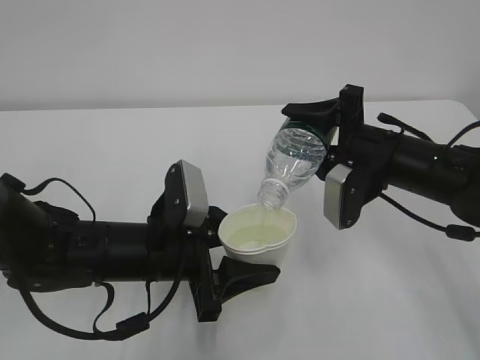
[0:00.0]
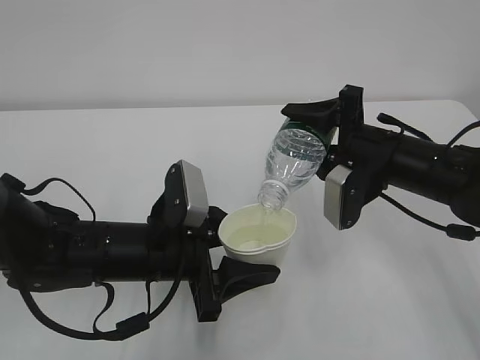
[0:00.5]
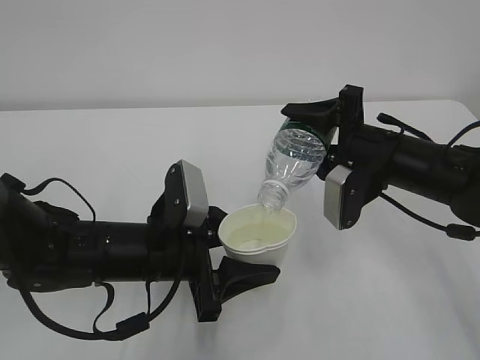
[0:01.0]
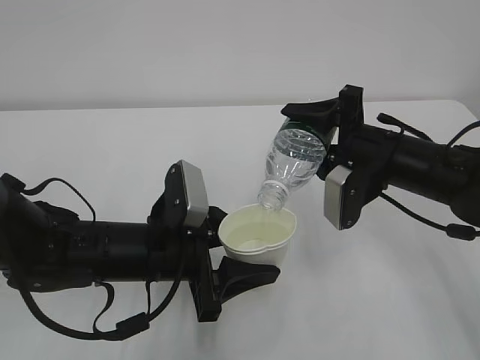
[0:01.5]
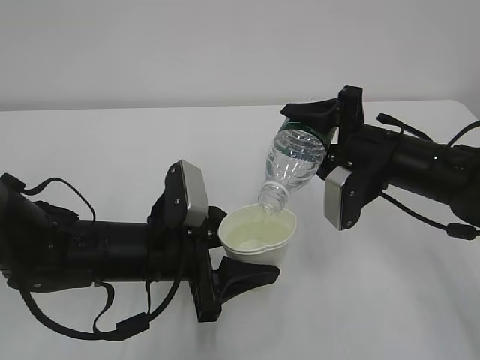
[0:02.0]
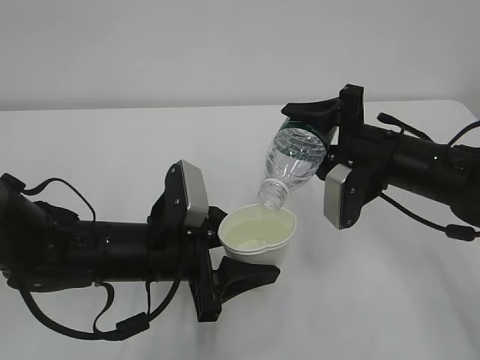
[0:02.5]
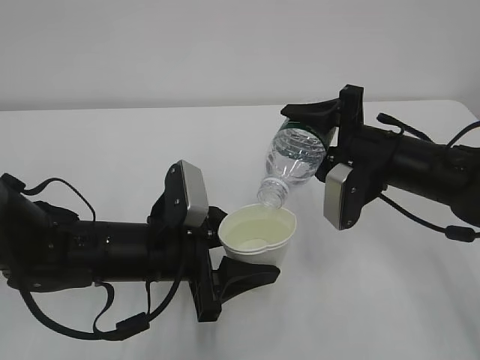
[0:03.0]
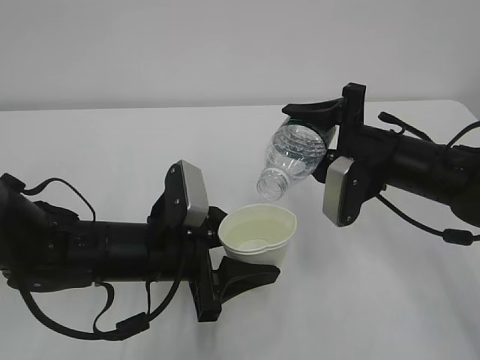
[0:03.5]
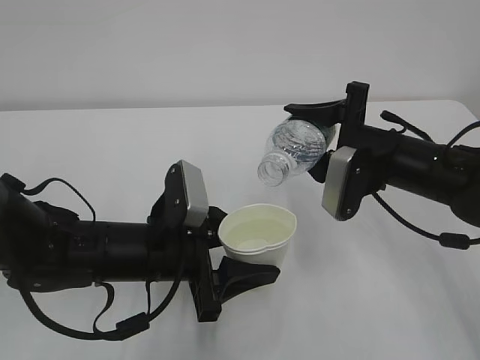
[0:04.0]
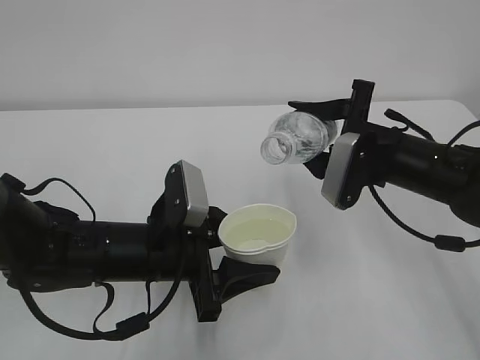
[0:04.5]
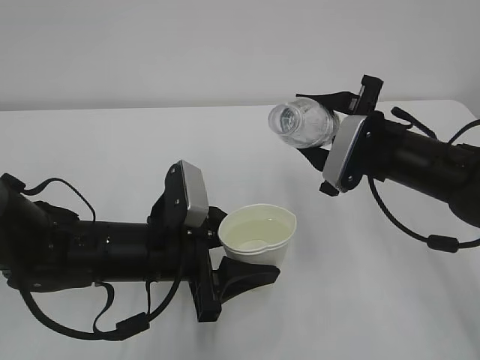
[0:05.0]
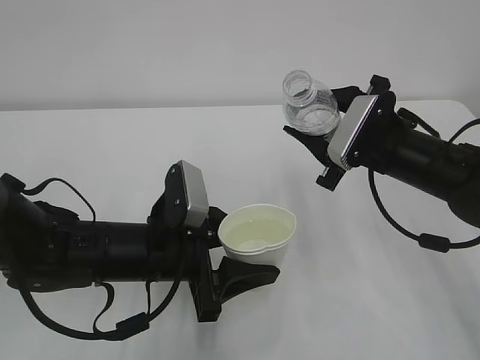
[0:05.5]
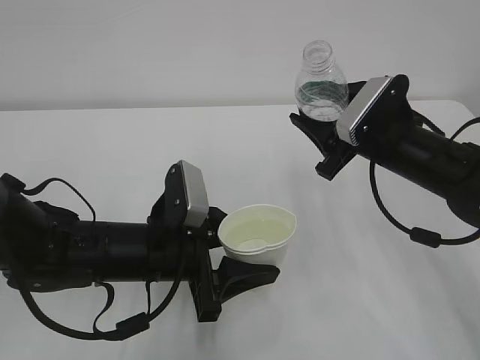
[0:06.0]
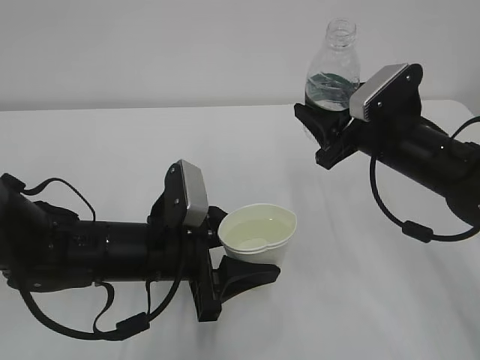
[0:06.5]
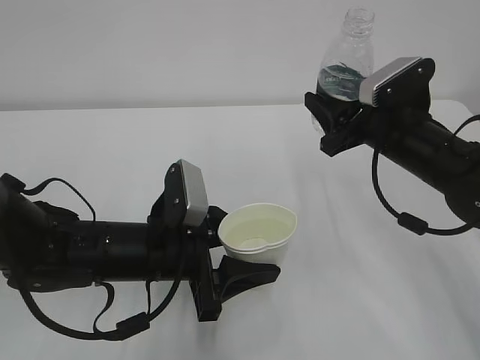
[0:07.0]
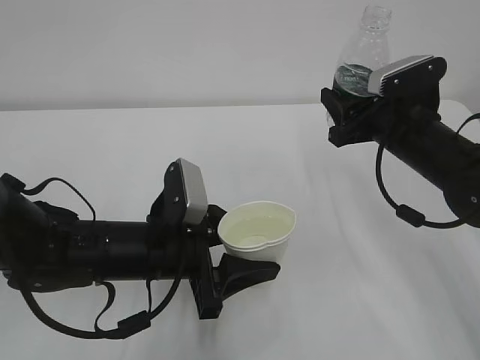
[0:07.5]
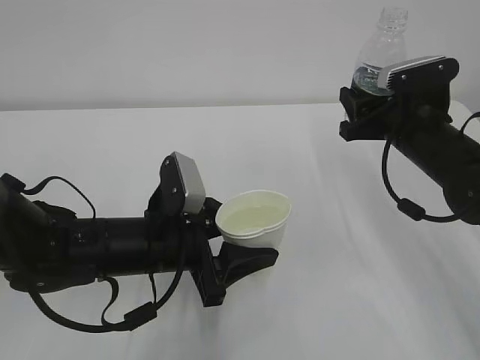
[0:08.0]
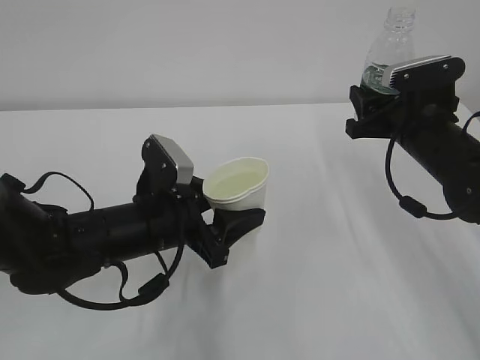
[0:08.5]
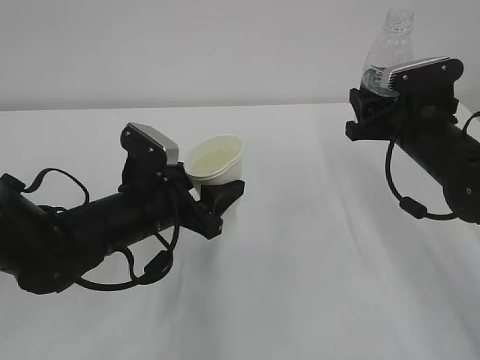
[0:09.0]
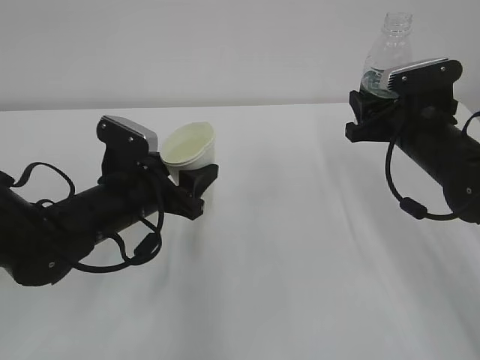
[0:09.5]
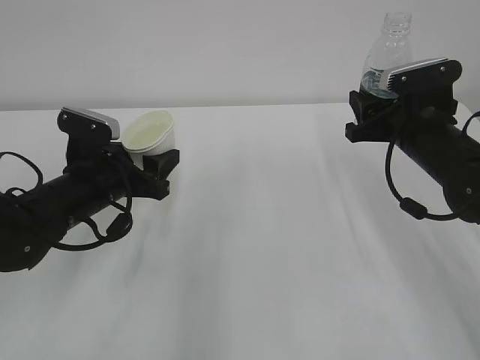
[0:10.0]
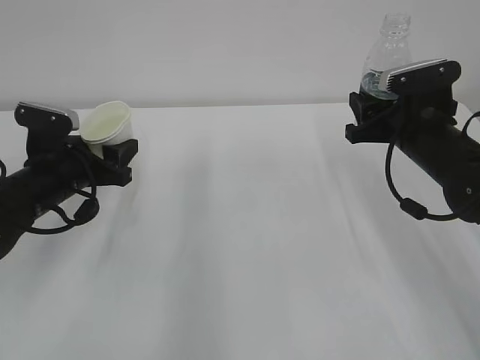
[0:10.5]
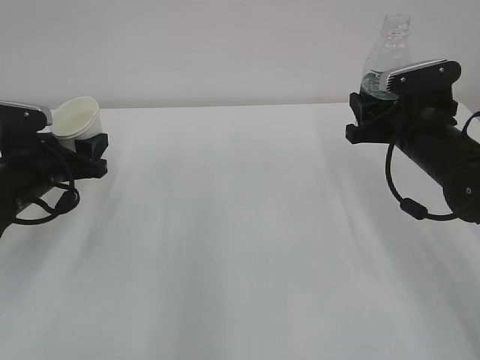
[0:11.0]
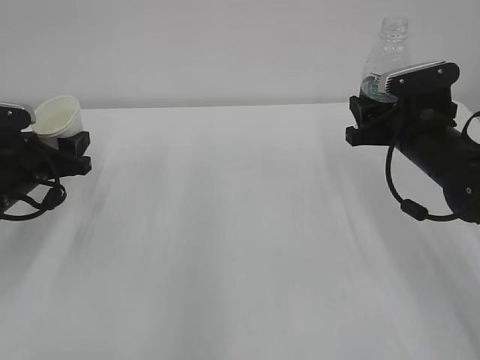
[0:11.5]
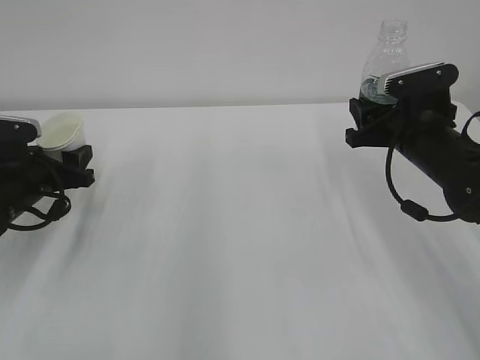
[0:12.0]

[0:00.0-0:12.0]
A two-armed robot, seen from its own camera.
0:00.0 to 0:02.0: Both grippers stay put.
0:02.0 to 0:04.0: The grippers make only small movements.
0:08.0 to 0:10.0: The left gripper heads to the left and forward, covering roughly 10 cm.
0:10.0 to 0:12.0: The left gripper is displaced to the left by about 10 cm.

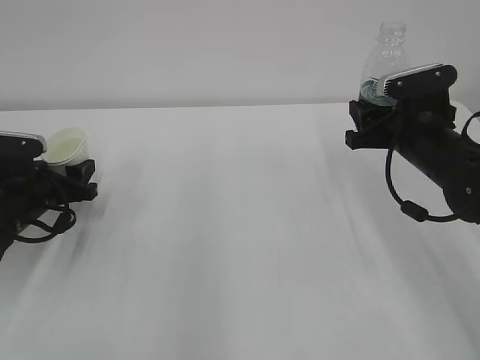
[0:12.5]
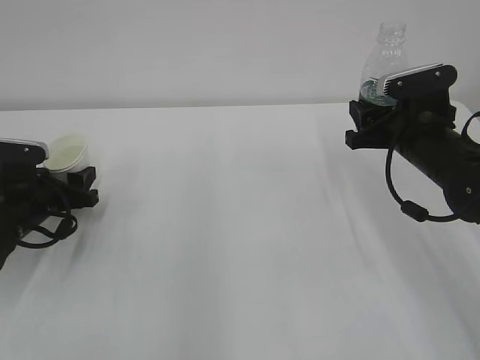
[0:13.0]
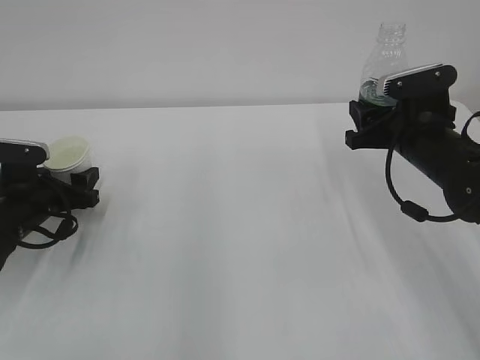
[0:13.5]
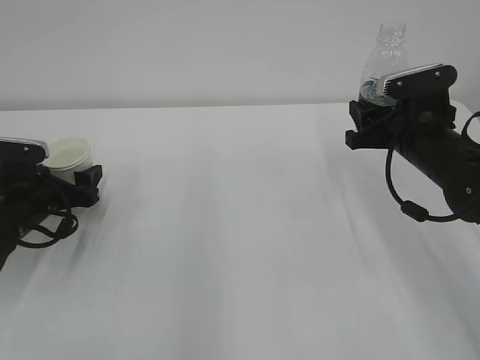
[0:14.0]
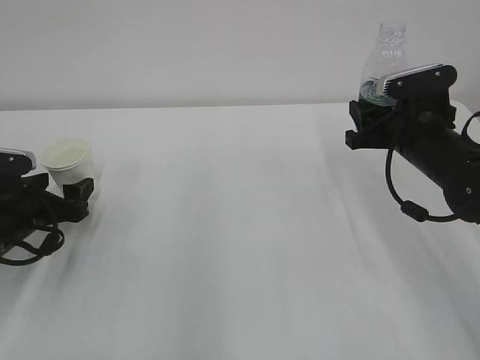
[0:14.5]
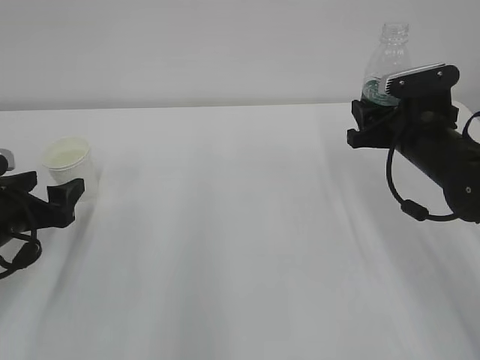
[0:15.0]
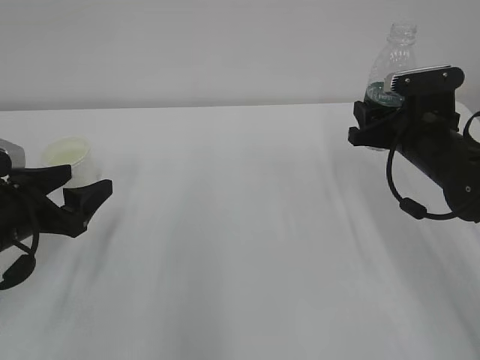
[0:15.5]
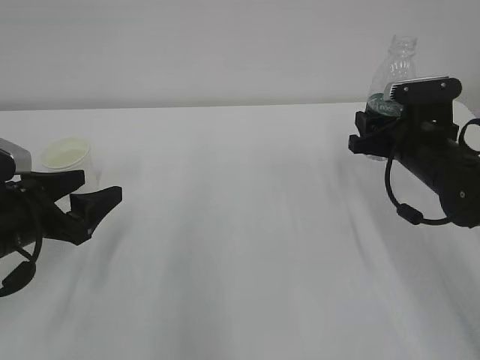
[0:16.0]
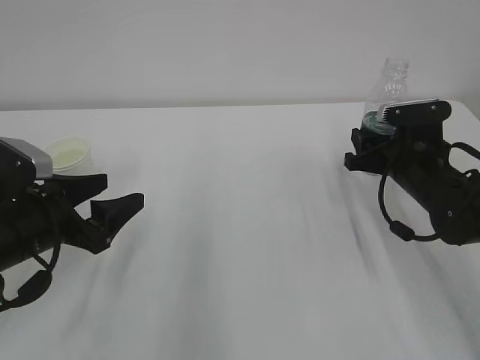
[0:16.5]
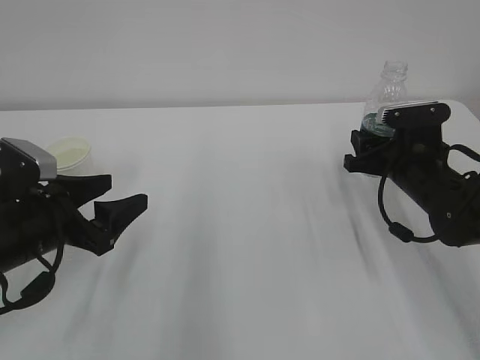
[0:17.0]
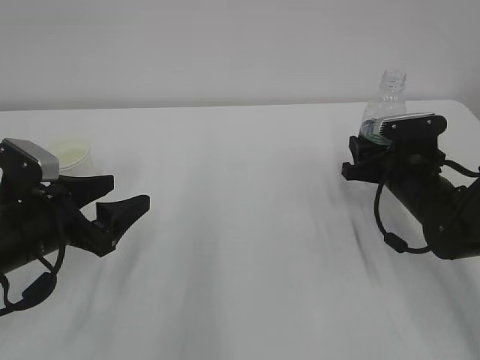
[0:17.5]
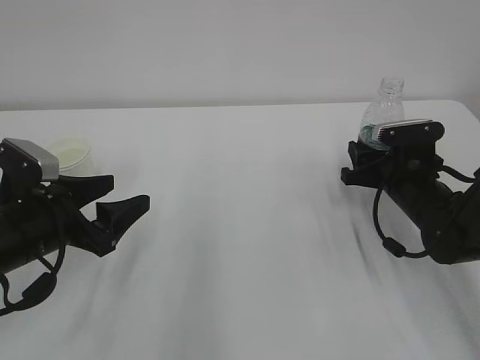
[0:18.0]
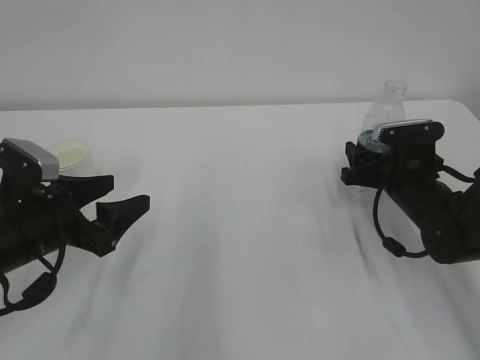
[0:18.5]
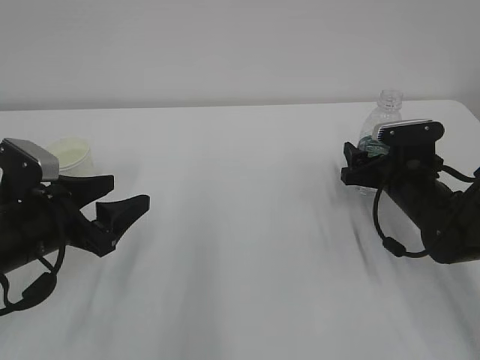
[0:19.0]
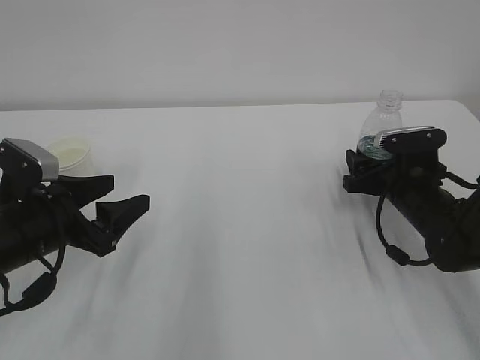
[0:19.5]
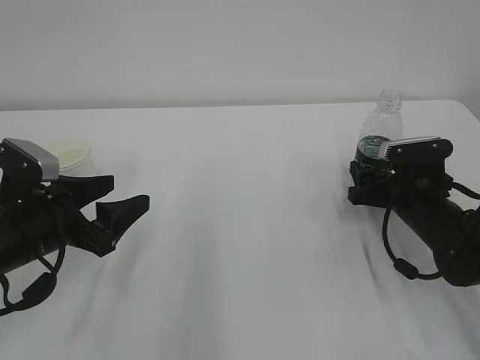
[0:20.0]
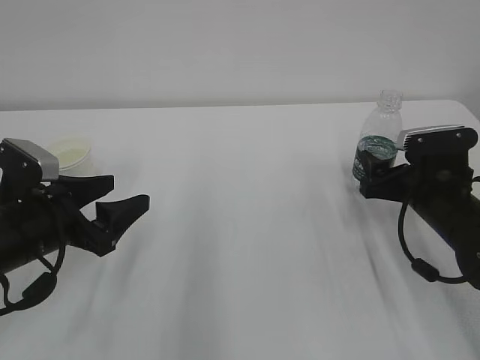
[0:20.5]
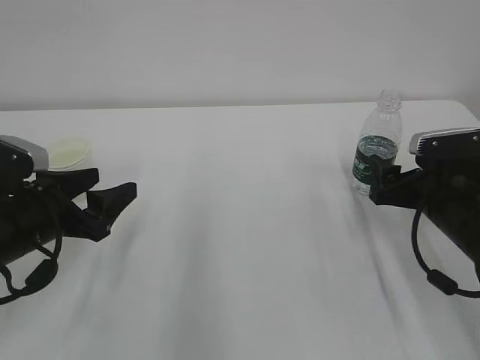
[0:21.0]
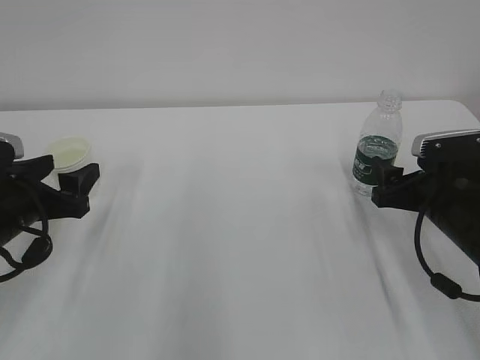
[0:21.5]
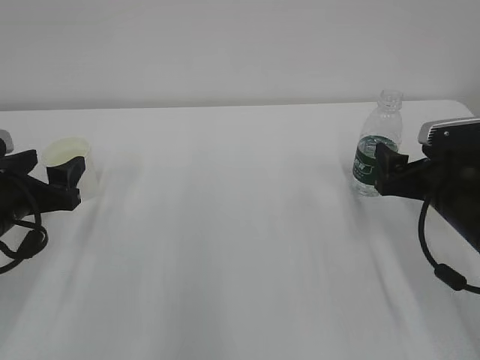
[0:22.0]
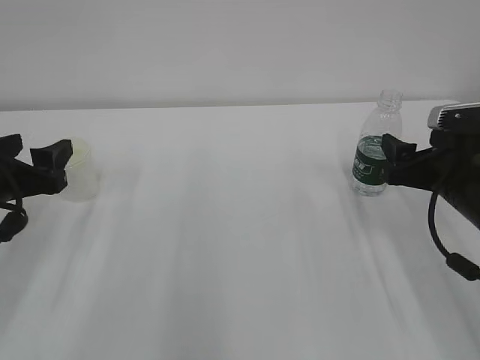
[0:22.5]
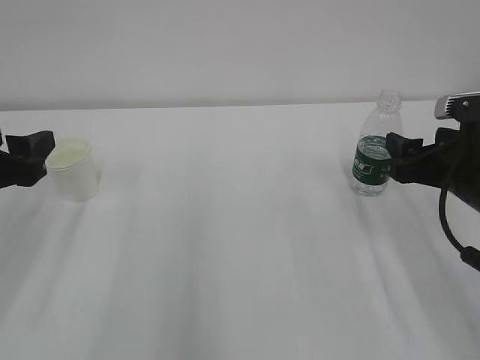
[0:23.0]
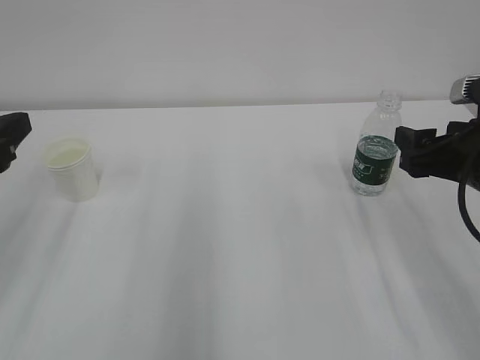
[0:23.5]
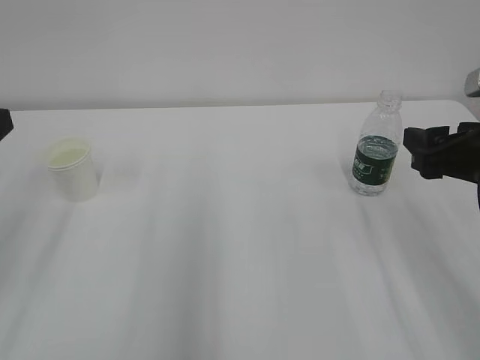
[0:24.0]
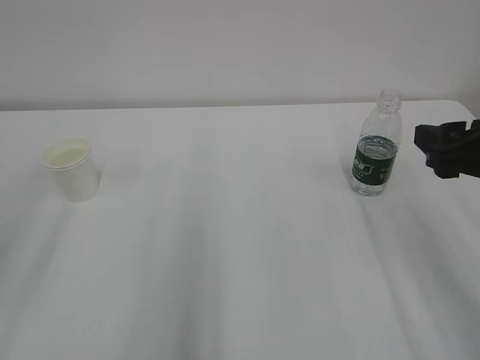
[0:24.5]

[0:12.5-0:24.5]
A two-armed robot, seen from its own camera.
0:12.5 to 0:14.5: The left gripper opens up.
0:14.5 to 0:16.5: The left gripper goes roughly 10 cm backward, to the right and upward.
0:16.5 to 0:18.5: The right gripper opens its fingers.
0:18.5 to 0:20.5: The right gripper shifts by some 5 cm, and opens up.
0:20.5 to 0:22.5: The right gripper travels upward by about 5 cm, while the left gripper moves some 5 cm.
0:22.5 to 0:24.5: The two grippers go approximately 10 cm upward and backward.

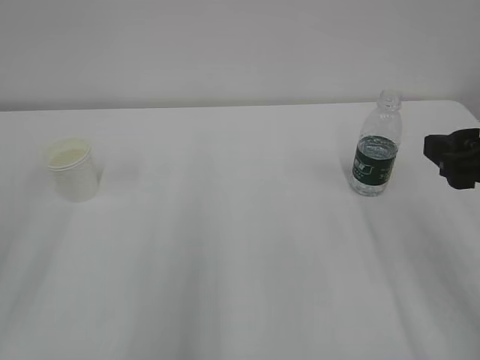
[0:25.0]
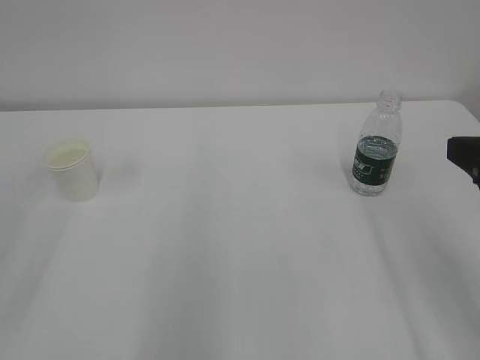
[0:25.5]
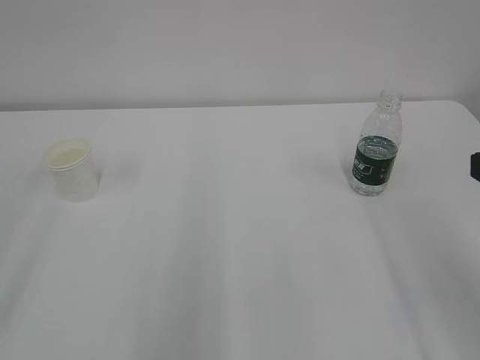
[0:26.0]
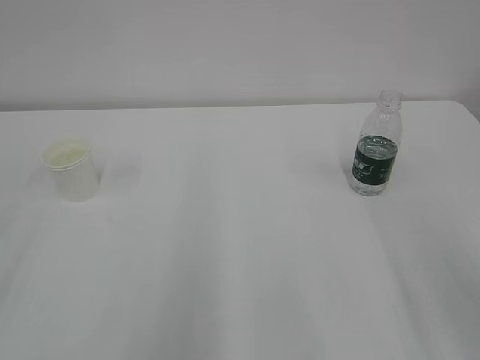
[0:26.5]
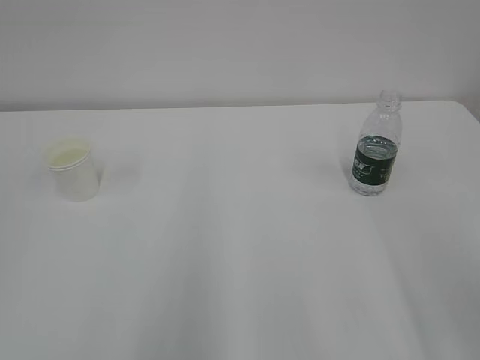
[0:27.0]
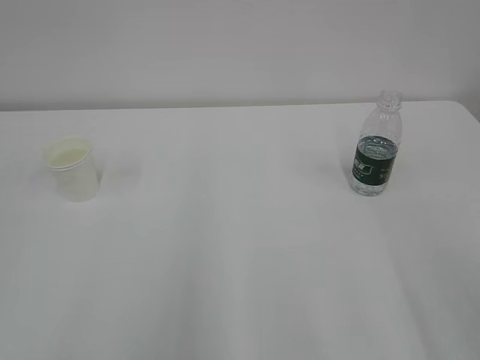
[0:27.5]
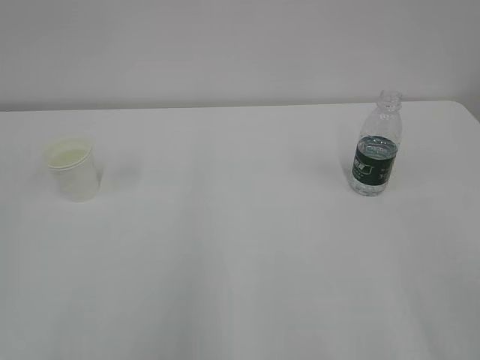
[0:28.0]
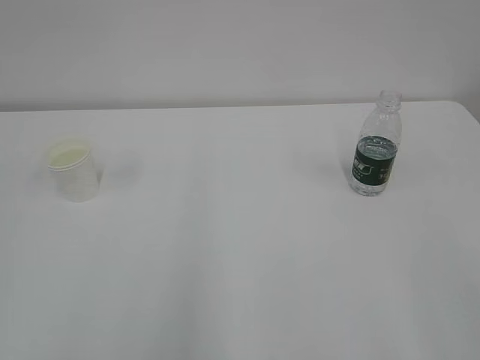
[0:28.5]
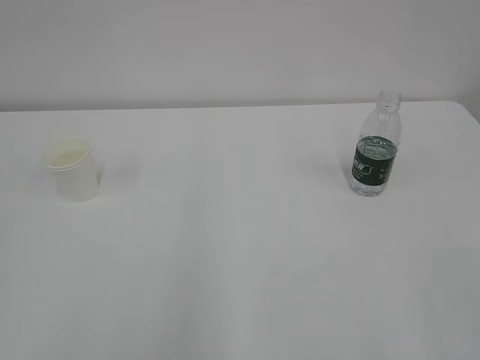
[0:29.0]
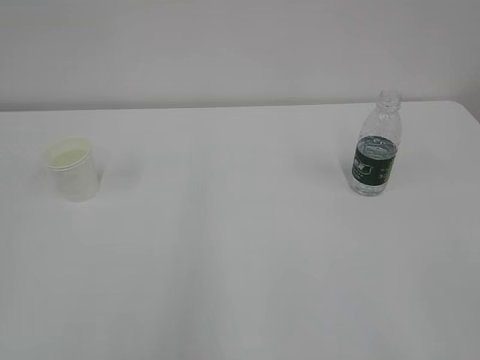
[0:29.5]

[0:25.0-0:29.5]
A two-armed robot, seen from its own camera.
0:25.0 to 0:27.0: The right gripper moves backward, about 10 cm.
